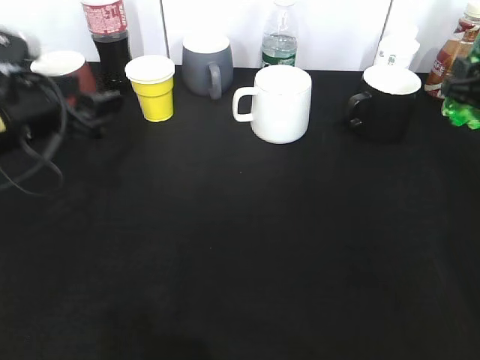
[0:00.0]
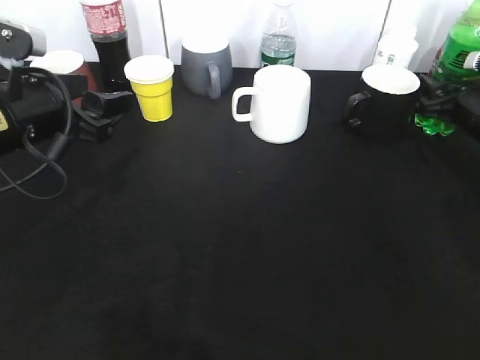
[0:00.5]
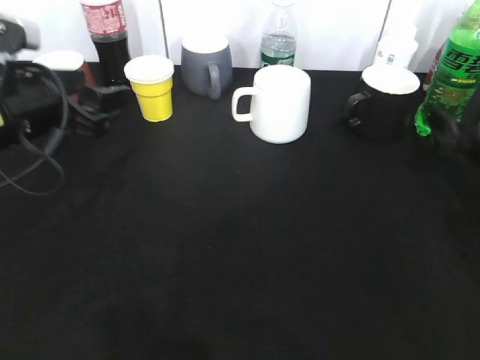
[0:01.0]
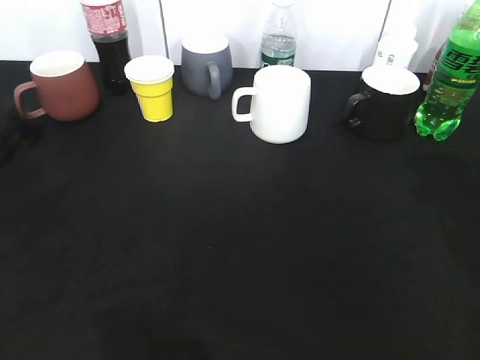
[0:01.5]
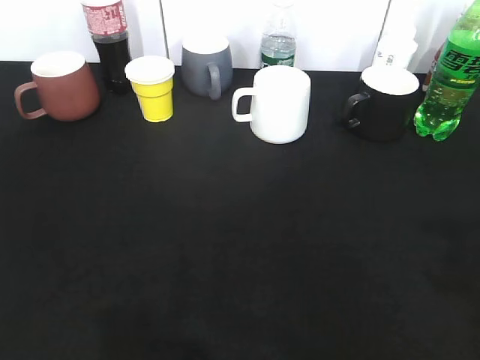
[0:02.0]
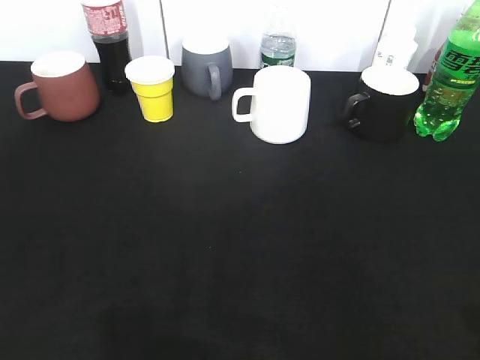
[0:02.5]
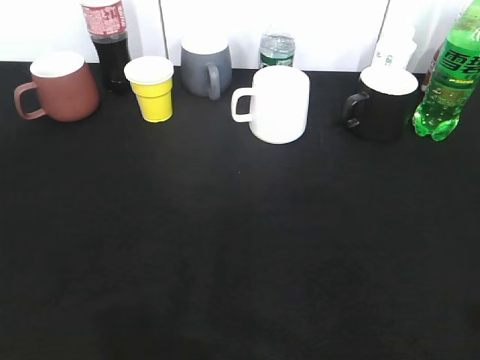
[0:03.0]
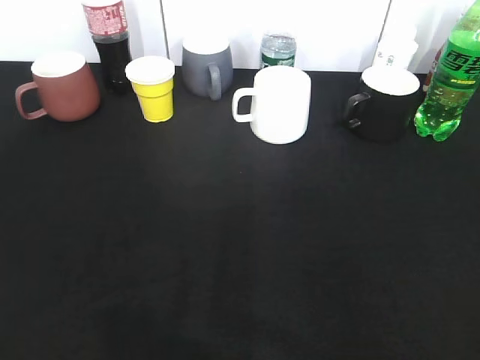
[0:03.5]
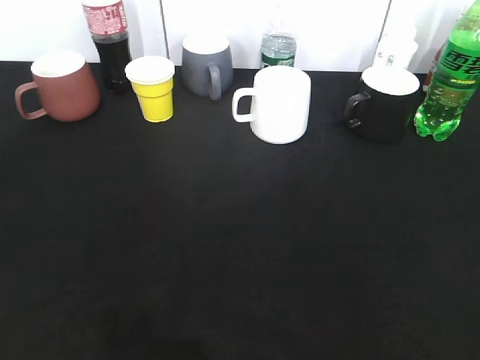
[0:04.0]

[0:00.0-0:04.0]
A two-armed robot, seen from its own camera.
0:00.0 to 0:02.0: Both grippers move backward and upward, roughly 30 cm. The right gripper opens its fingers.
